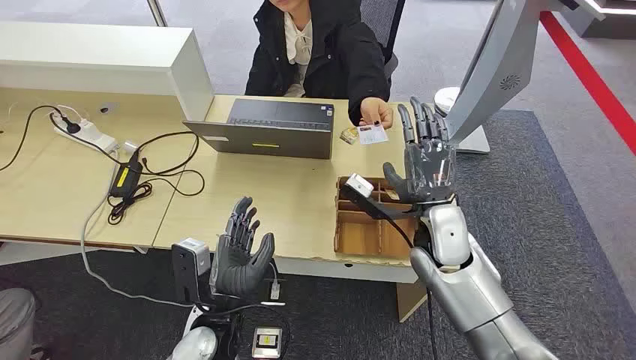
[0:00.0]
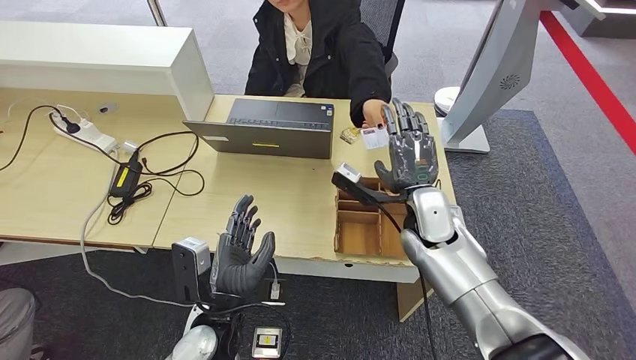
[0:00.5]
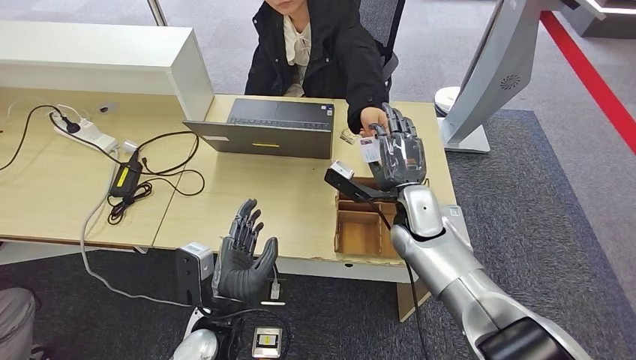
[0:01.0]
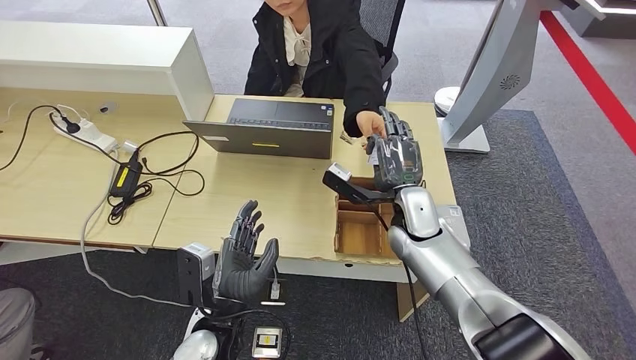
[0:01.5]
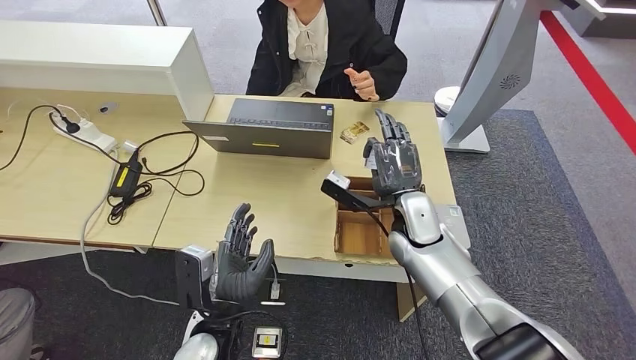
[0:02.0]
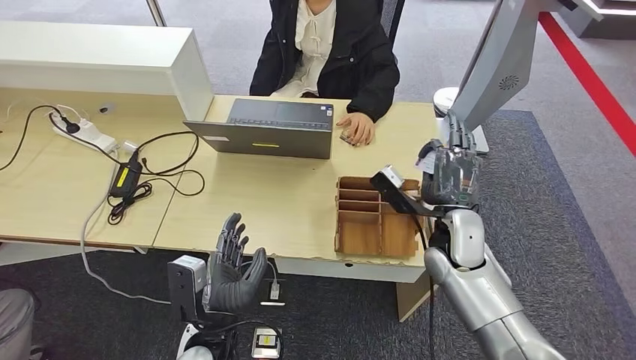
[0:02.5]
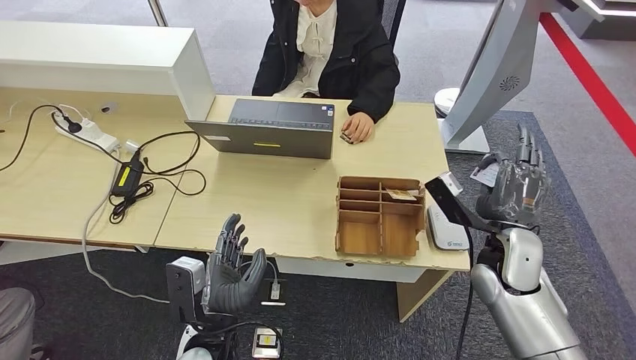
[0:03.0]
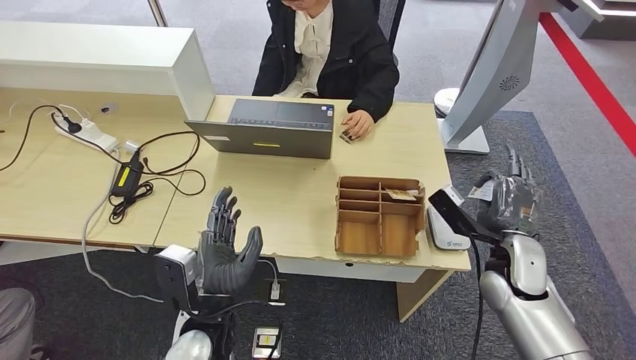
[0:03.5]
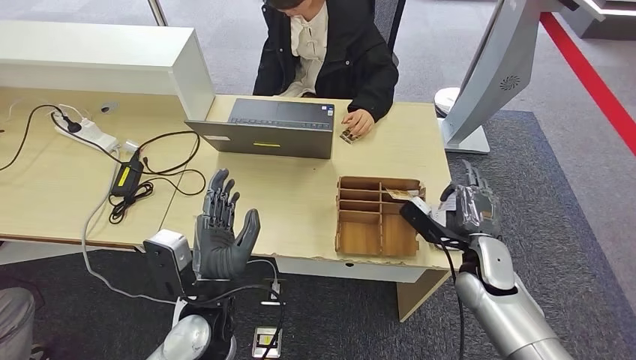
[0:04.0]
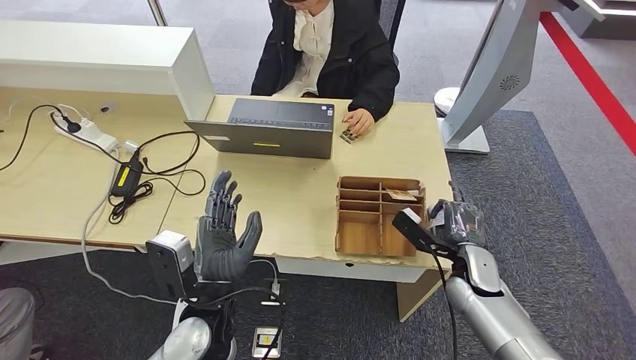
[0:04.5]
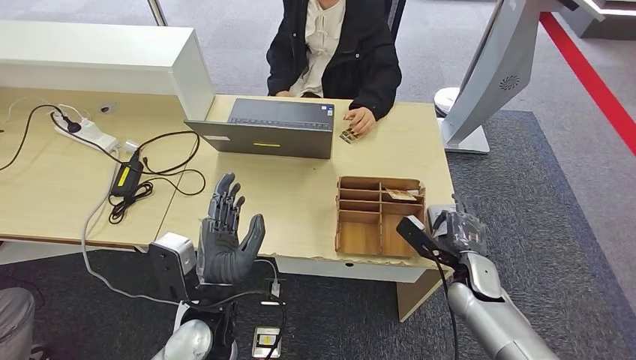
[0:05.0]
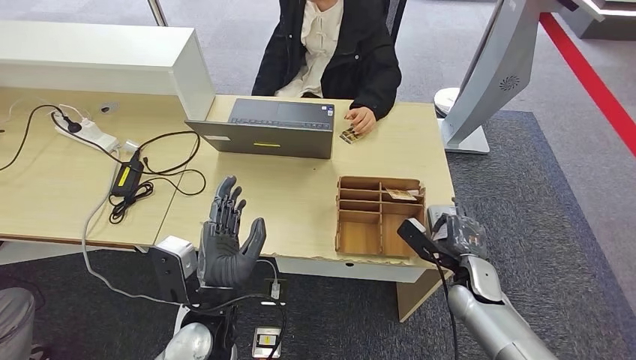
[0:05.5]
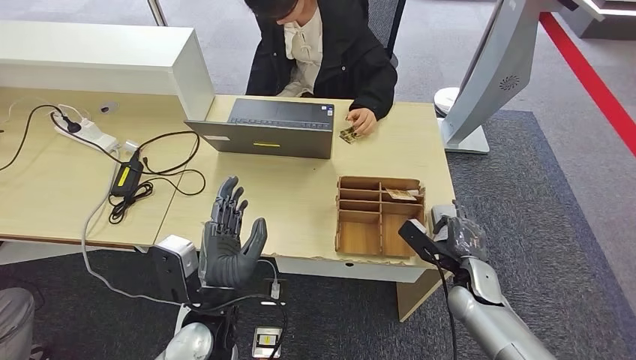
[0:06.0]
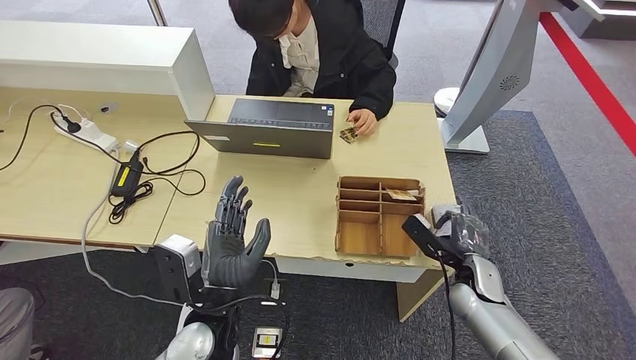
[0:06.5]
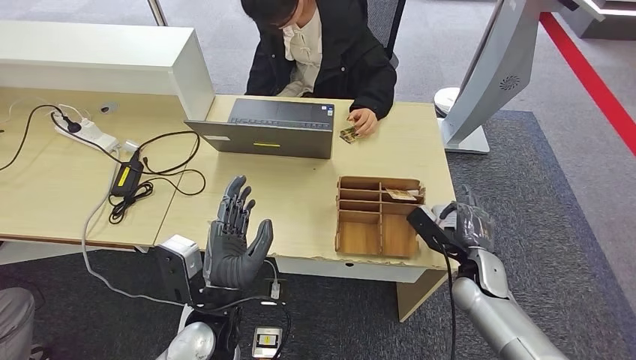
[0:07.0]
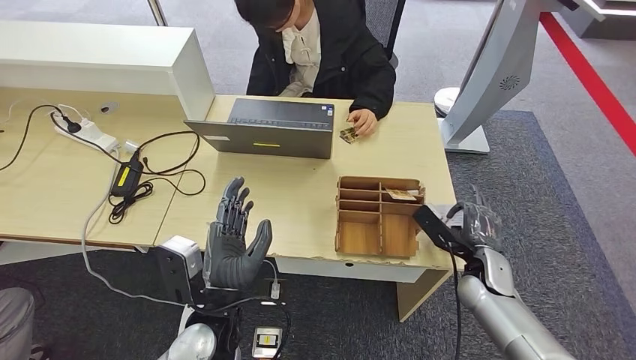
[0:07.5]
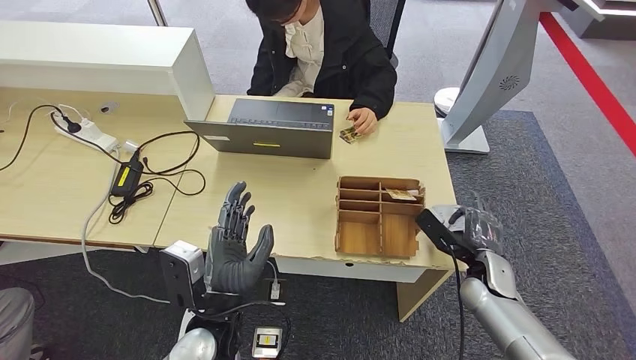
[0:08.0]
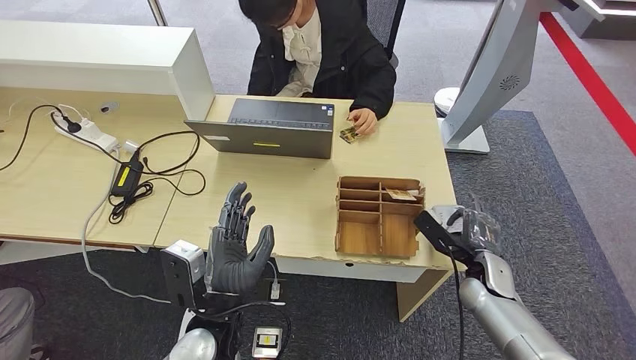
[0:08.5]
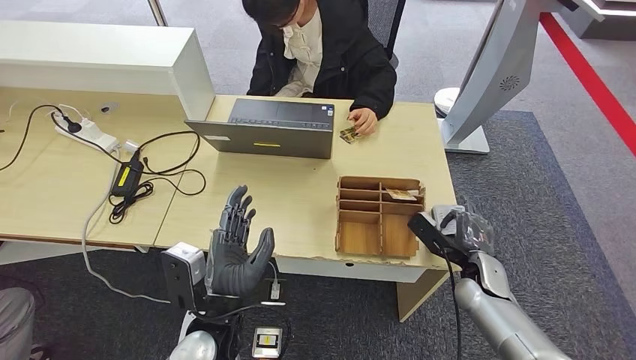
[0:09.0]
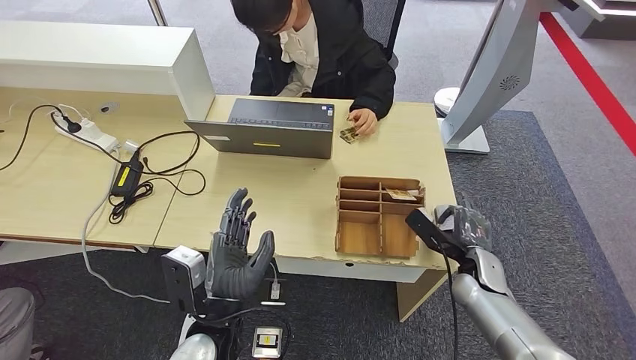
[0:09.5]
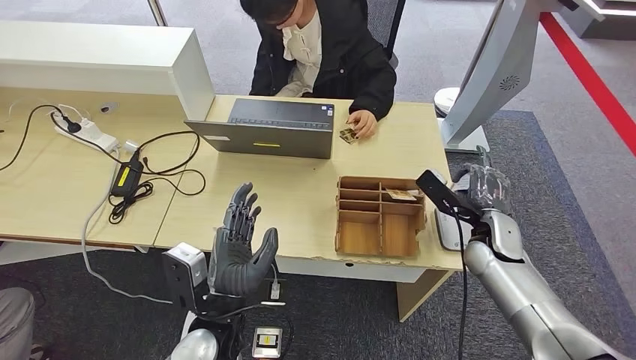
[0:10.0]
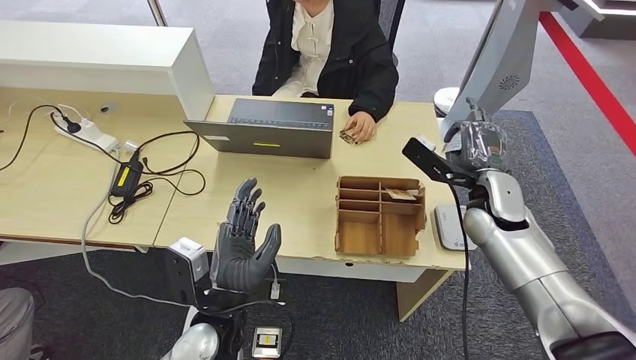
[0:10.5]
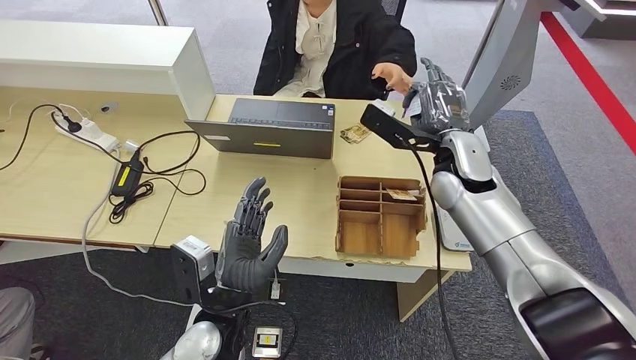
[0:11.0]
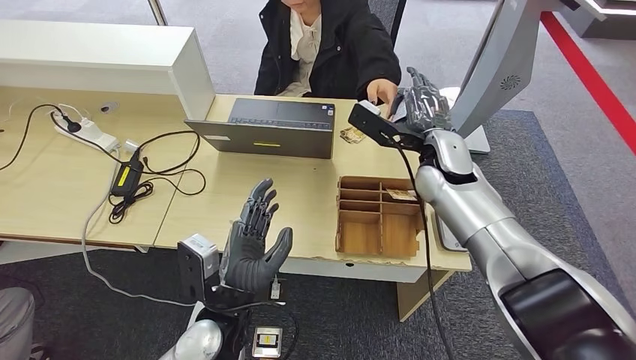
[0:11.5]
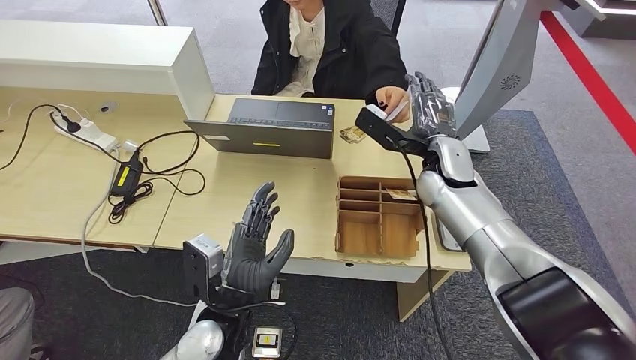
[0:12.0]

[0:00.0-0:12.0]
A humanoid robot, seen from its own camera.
Step, 0:00.0 to 0:02.0: Take the ID card from the person's hand.
Step, 0:02.5 to 0:09.5: Place the ID card on the card reader.
0:02.0 to 0:04.0: The left hand shifts by roughly 5 cm, while the right hand travels to the right and backward by approximately 15 cm.
0:04.0 to 0:06.0: The right hand travels downward by approximately 5 cm.
0:06.0 to 0:08.0: The hands move only a little.
0:08.0 to 0:10.0: The right hand is displaced upward by about 5 cm.
0:10.0 to 0:12.0: The right hand travels upward, to the left and forward by some 20 cm.

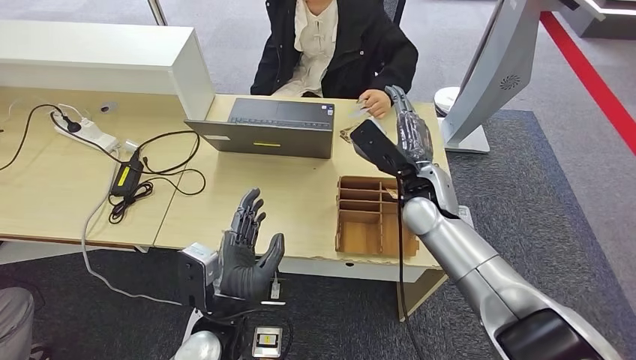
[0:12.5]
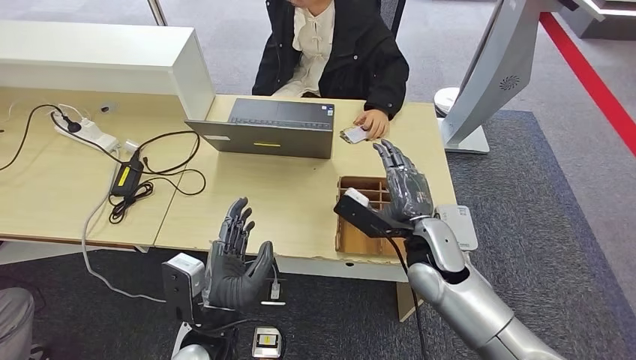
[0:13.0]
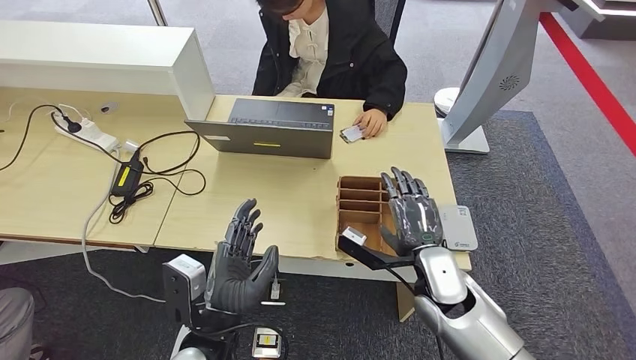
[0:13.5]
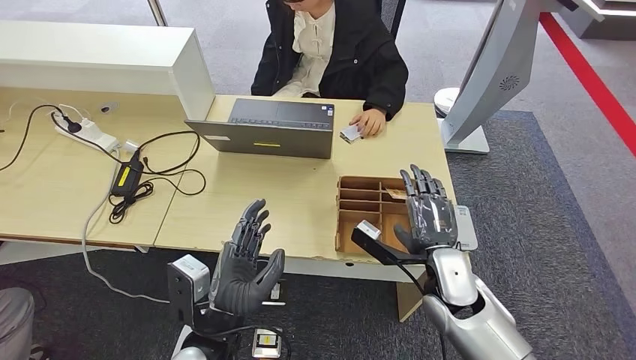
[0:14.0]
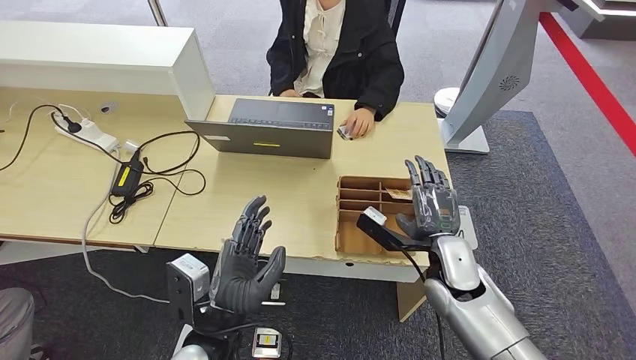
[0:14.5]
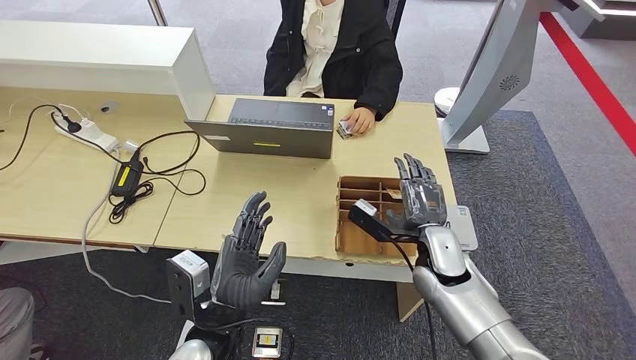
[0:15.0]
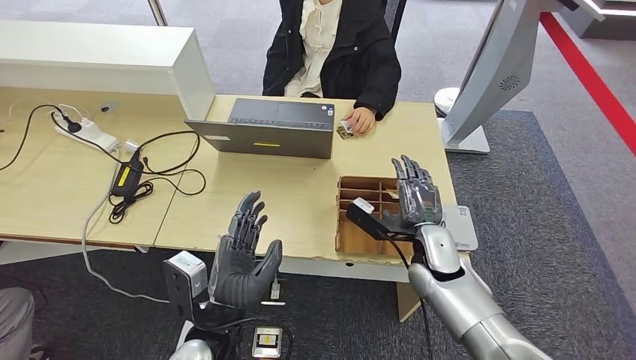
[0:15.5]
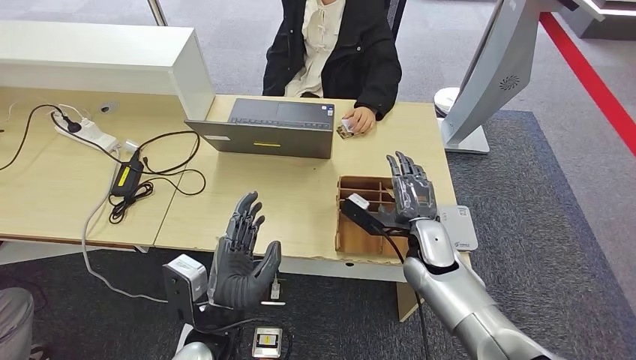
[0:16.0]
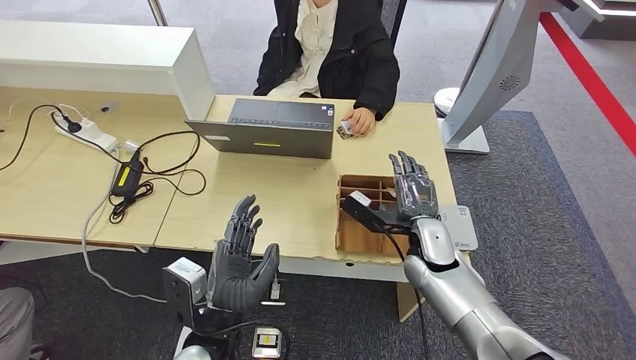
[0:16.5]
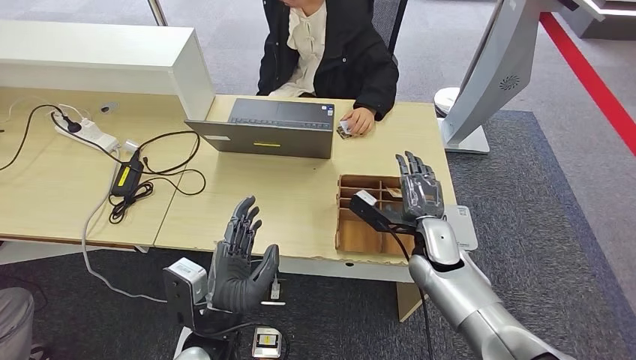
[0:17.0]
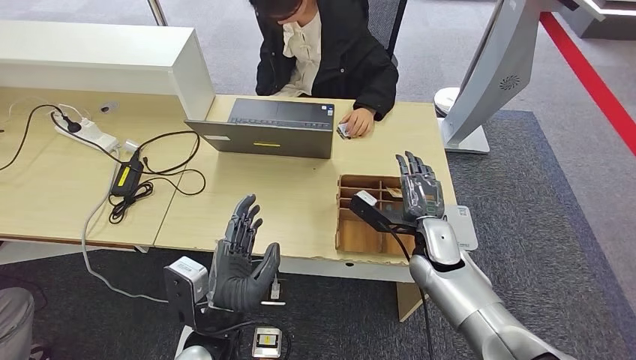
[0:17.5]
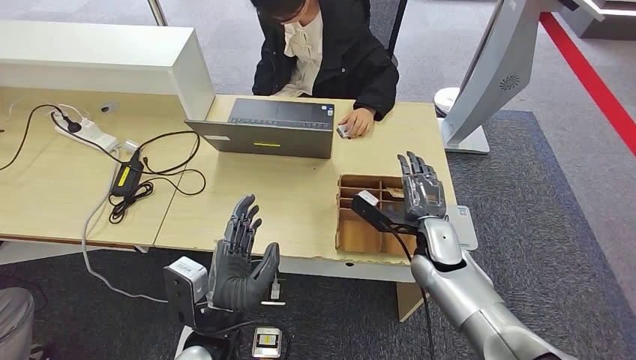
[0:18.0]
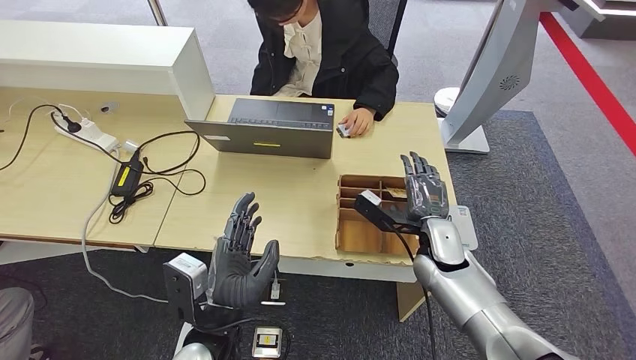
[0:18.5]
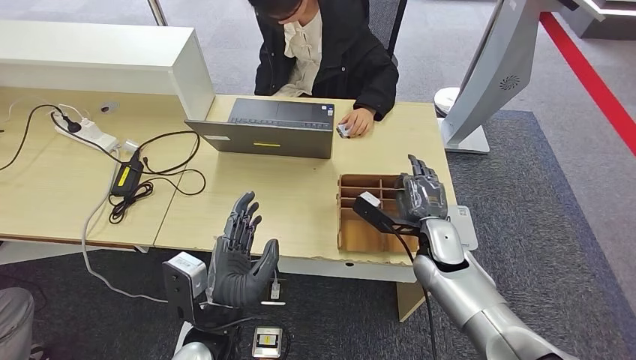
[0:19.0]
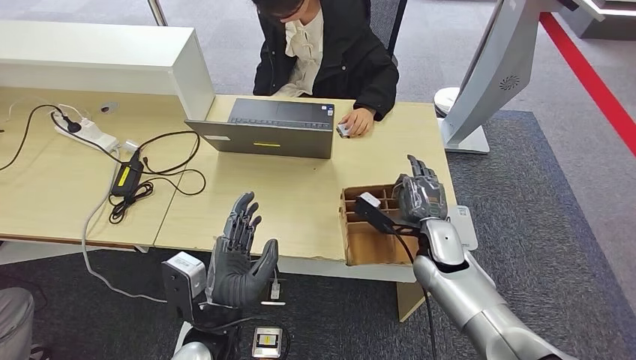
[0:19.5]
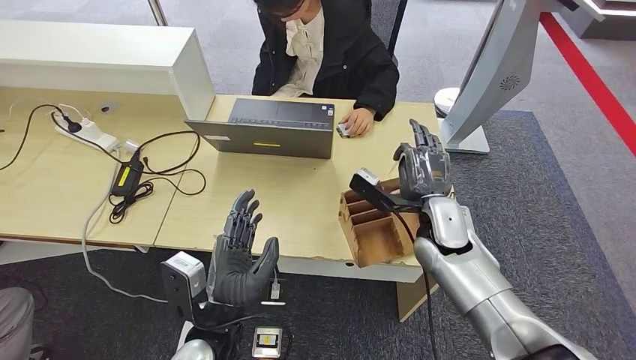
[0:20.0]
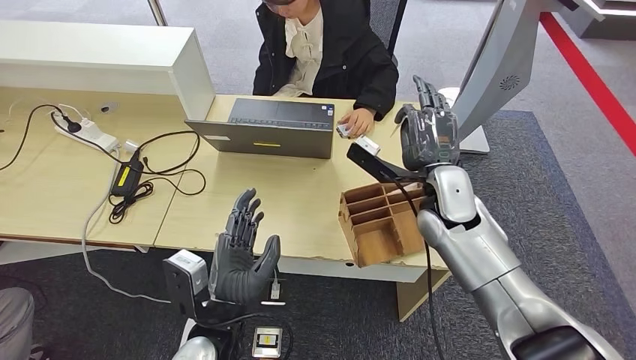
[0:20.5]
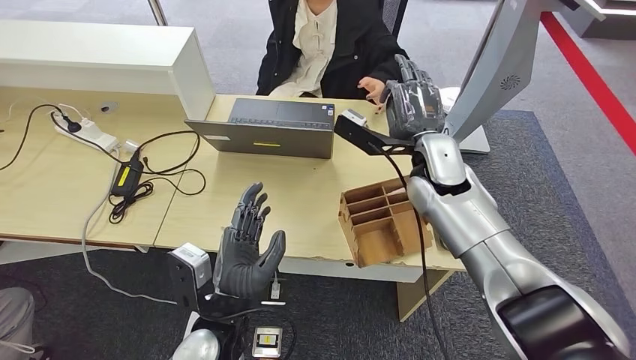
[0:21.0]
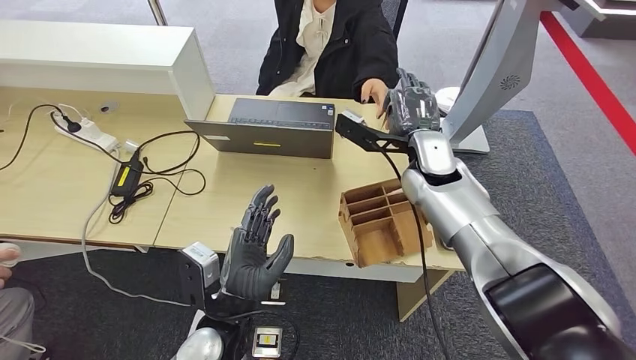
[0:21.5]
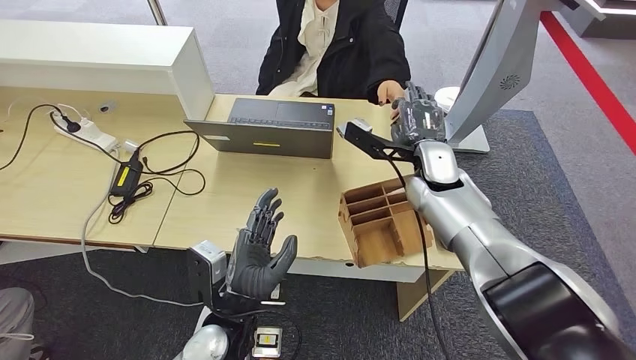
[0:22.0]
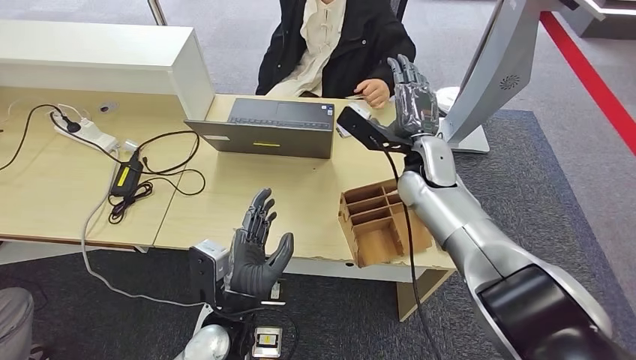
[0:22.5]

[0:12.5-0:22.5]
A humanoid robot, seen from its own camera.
Step, 0:19.0 to 0:20.5: Pick up the room key from the key card box.
Step, 0:21.0 to 0:22.5: Hand the room key to the person.
0:12.5 to 0:14.5: The right hand is displaced backward and downward by about 15 cm.
0:14.5 to 0:16.5: The right hand moves roughly 5 cm.
0:16.5 to 0:18.5: The hands stay close to where they were, moving slightly.
0:18.5 to 0:20.5: The right hand travels upward by roughly 10 cm.
0:20.5 to 0:22.5: The right hand goes some 5 cm forward.
